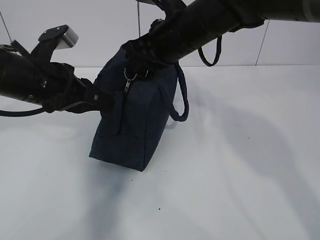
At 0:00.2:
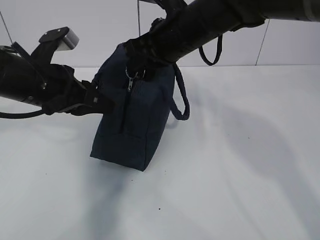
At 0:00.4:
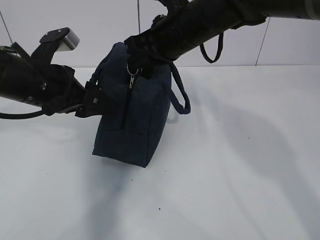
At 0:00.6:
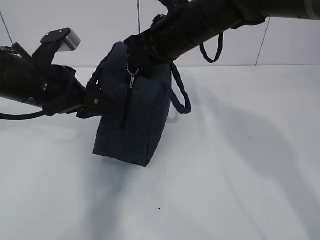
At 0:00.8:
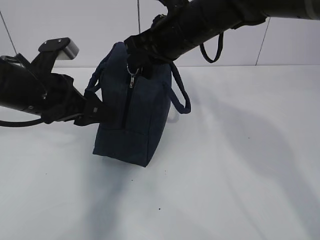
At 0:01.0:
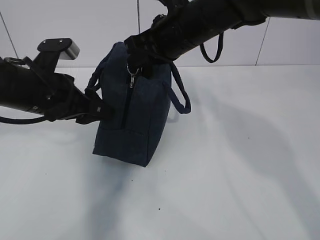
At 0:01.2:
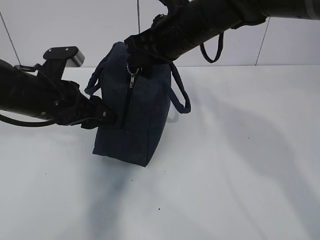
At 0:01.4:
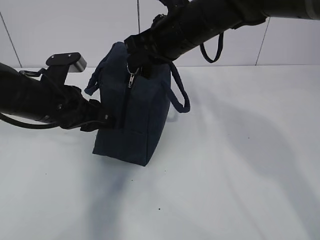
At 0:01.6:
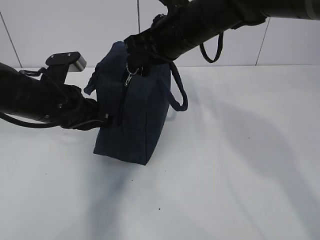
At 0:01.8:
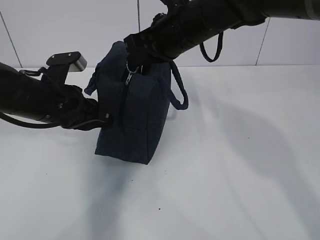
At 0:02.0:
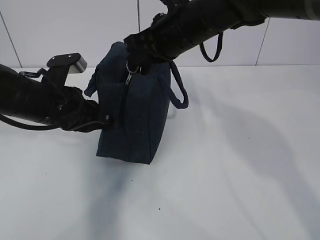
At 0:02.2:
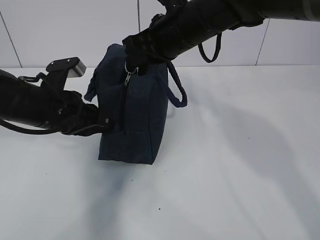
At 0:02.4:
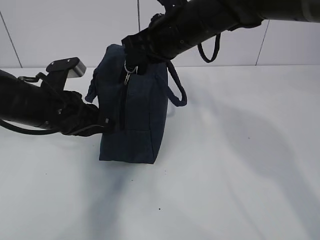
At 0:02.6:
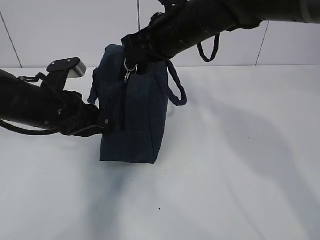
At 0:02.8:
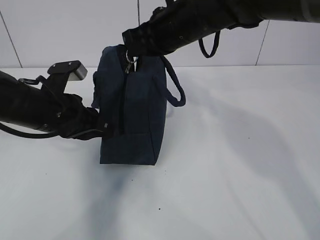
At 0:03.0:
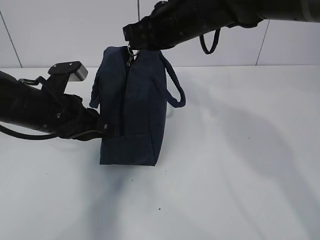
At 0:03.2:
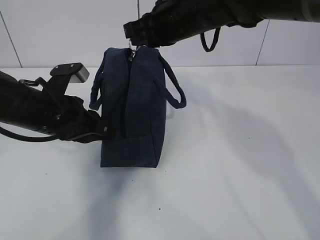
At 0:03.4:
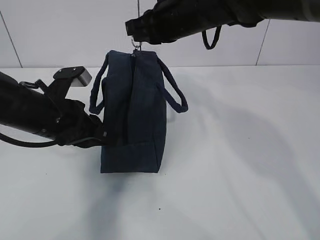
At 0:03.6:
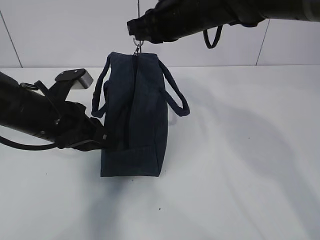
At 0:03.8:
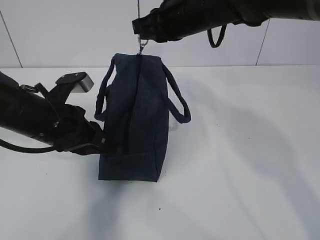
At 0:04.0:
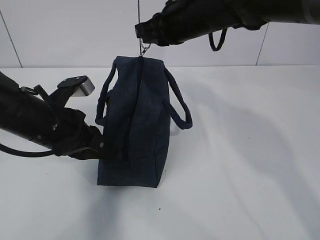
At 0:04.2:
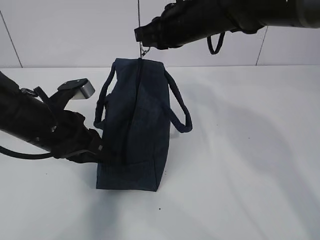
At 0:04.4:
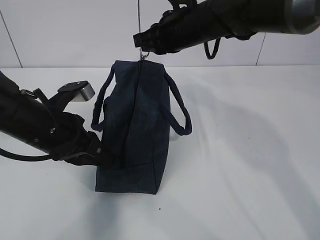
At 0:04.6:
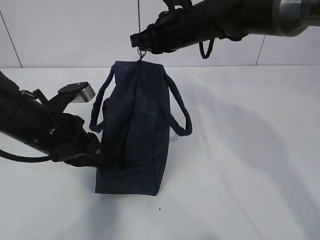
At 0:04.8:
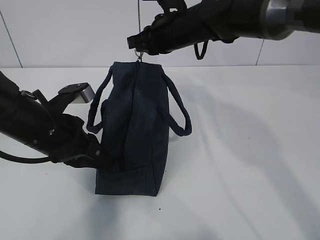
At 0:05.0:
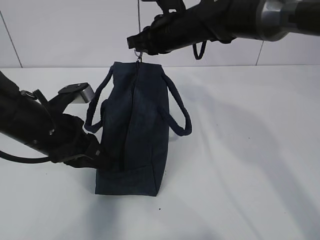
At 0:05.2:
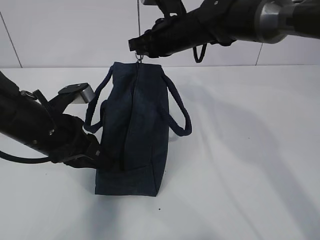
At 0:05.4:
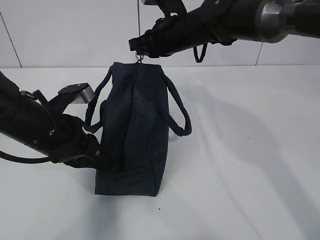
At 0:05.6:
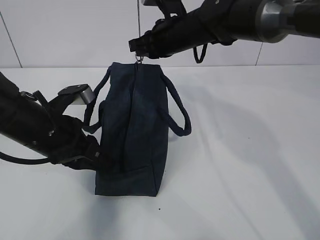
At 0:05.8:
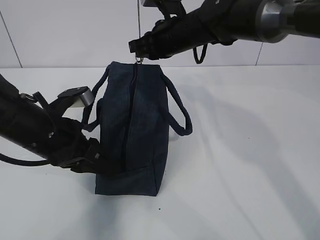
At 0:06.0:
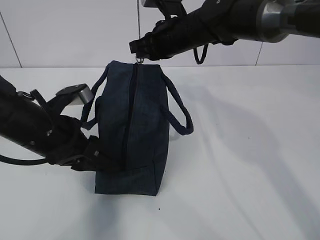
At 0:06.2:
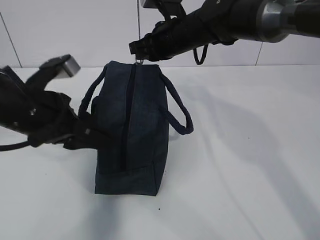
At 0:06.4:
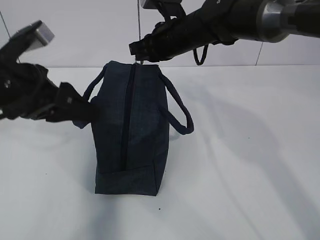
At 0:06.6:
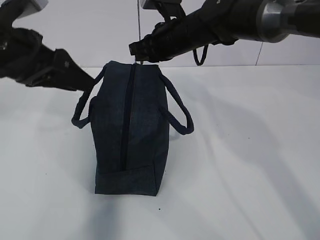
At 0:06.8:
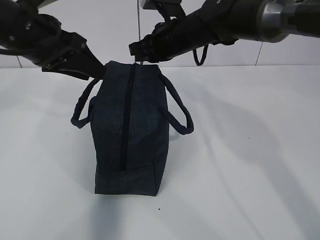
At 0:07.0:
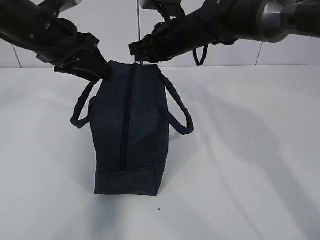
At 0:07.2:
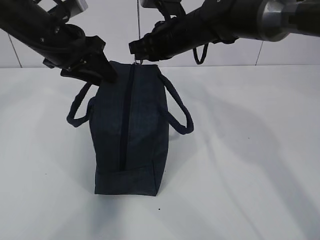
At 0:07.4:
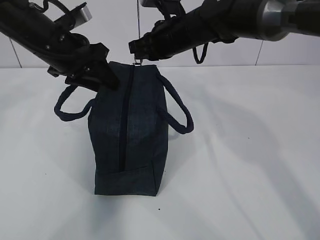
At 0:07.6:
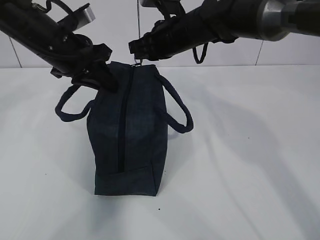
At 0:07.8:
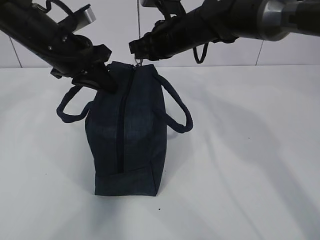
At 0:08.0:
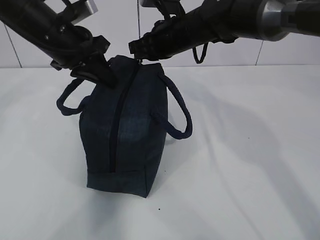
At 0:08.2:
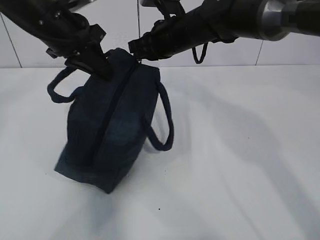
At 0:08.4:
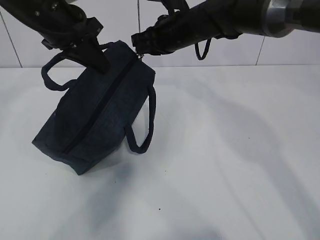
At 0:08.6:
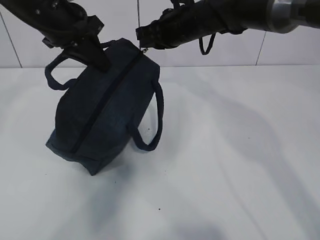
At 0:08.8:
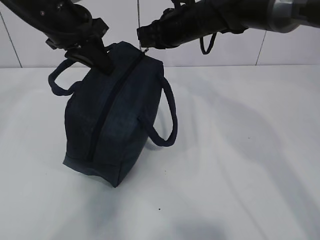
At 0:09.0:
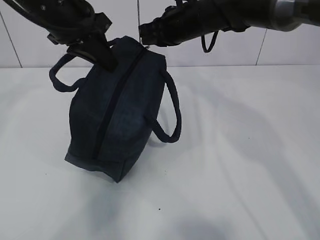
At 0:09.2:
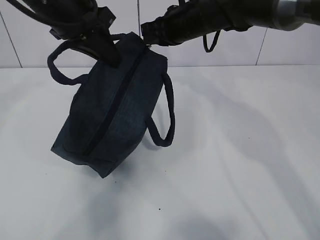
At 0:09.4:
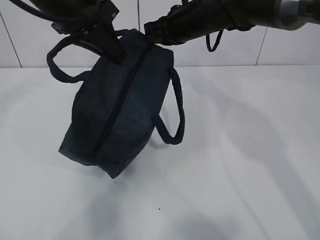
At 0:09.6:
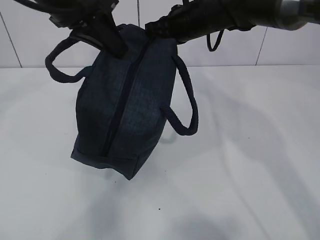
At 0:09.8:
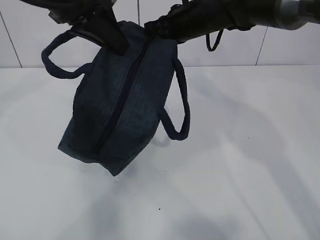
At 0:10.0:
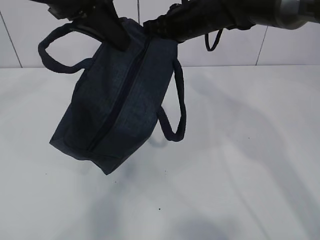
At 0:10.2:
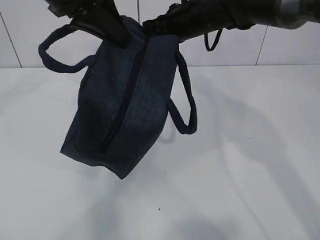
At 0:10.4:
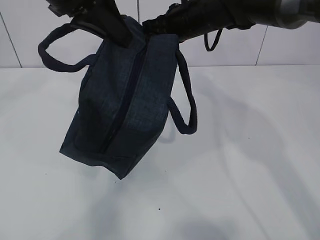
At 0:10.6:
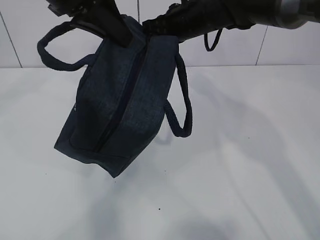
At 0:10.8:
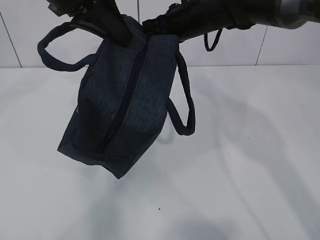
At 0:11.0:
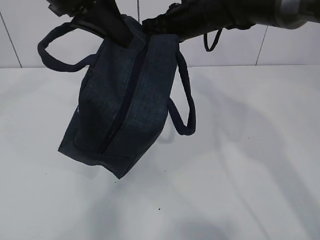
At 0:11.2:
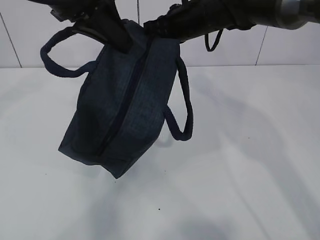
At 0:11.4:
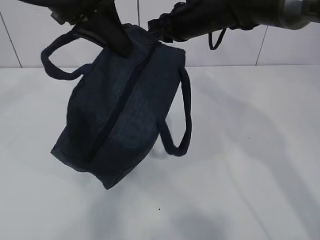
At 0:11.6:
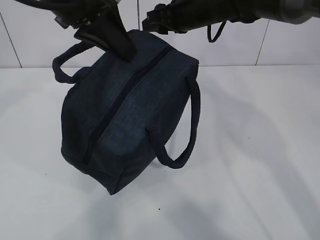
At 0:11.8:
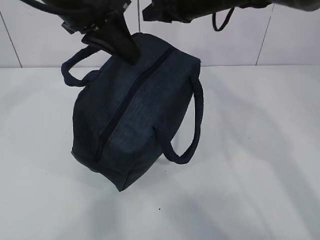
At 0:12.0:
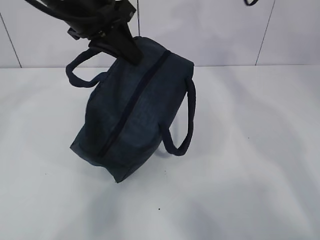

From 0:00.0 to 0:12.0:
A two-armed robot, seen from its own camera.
From 0:00.0 to 0:01.6: The left gripper opens, then closes again.
From 0:01.6 to 0:03.0: The grippers stay close to where they were, moving slightly.
From 0:03.0 to 0:04.4: There are only small adjustments of the grippers.
From 0:04.4 to 0:06.0: The left gripper opens.
From 0:06.0 to 0:07.6: The left gripper moves forward and upward, about 15 cm, and closes up.
From 0:07.6 to 0:09.0: The left gripper is displaced upward by some 5 cm.
From 0:09.0 to 0:10.4: The left gripper travels upward and backward by approximately 10 cm.
From 0:10.4 to 0:12.0: The right gripper moves upward and to the right, some 10 cm, and opens its fingers.

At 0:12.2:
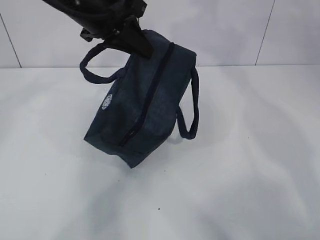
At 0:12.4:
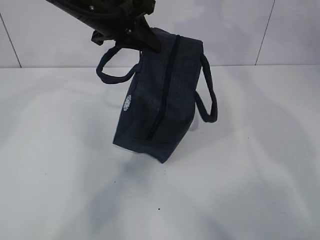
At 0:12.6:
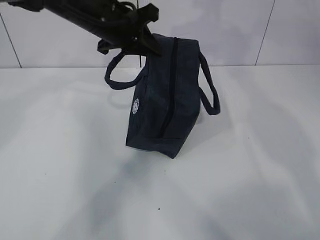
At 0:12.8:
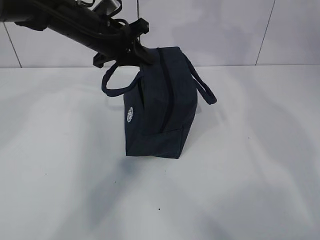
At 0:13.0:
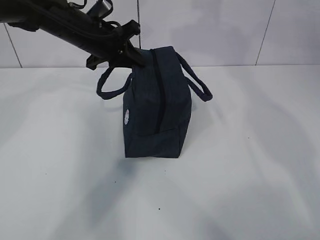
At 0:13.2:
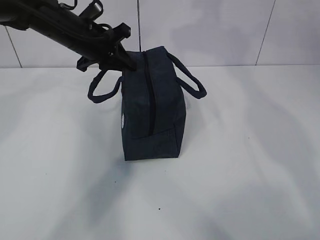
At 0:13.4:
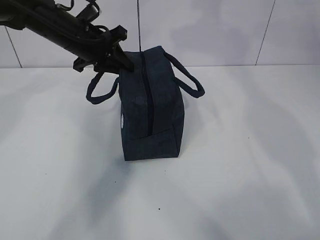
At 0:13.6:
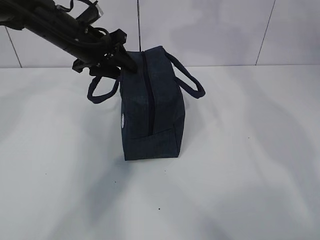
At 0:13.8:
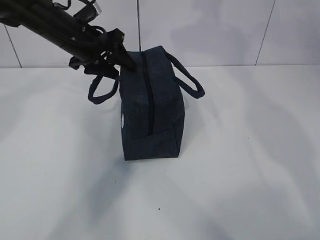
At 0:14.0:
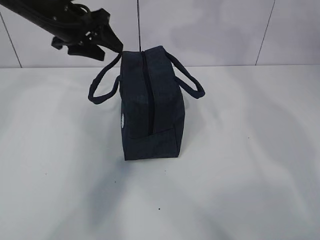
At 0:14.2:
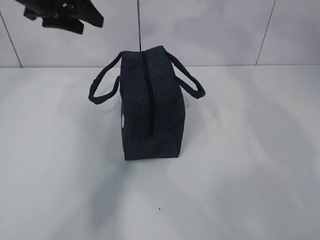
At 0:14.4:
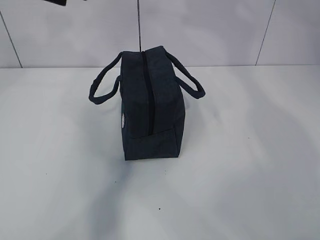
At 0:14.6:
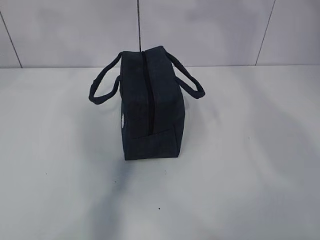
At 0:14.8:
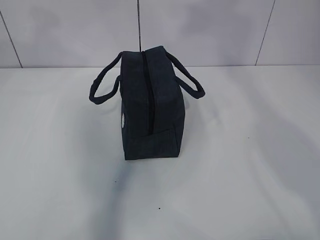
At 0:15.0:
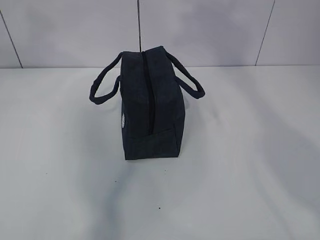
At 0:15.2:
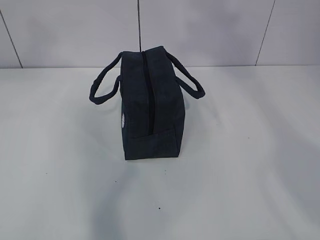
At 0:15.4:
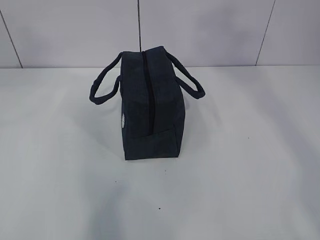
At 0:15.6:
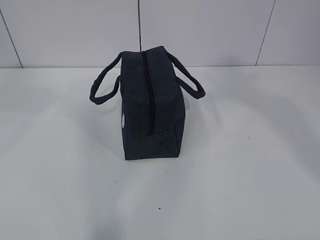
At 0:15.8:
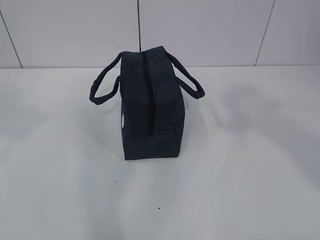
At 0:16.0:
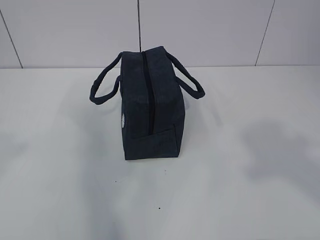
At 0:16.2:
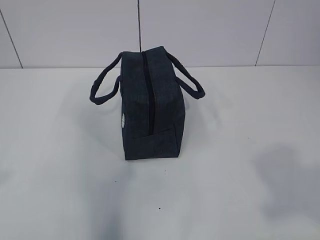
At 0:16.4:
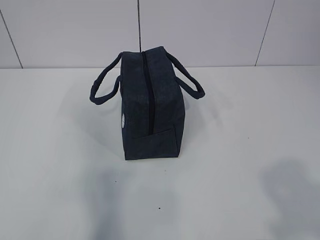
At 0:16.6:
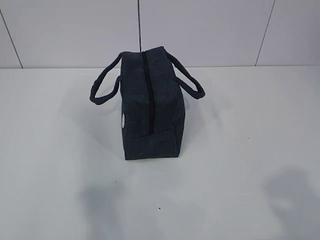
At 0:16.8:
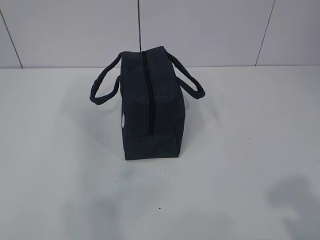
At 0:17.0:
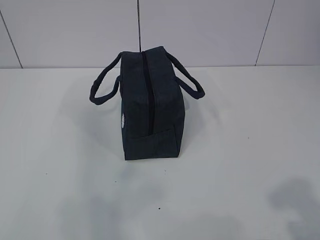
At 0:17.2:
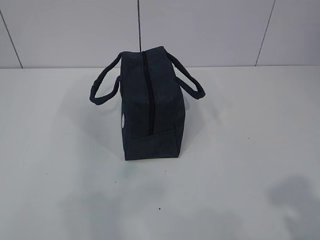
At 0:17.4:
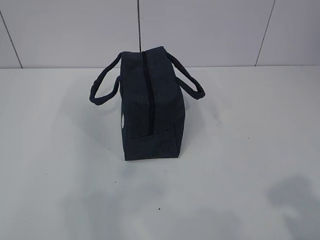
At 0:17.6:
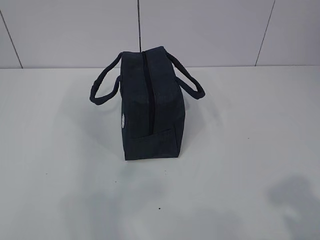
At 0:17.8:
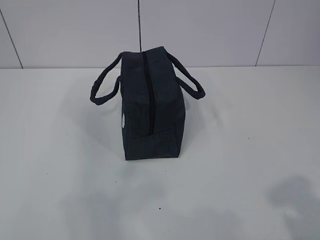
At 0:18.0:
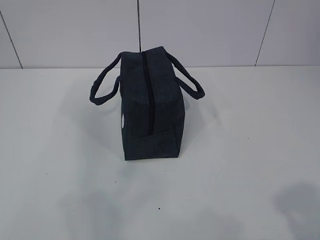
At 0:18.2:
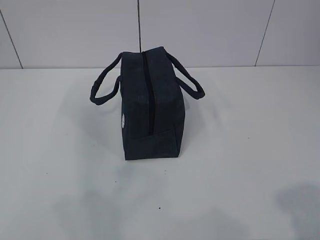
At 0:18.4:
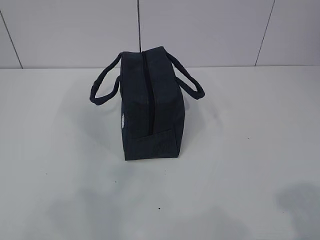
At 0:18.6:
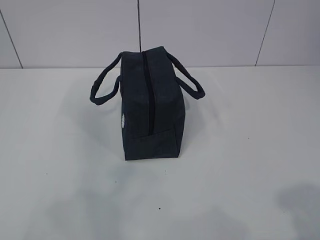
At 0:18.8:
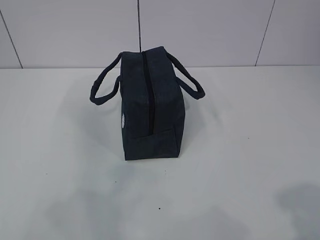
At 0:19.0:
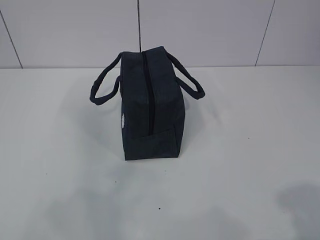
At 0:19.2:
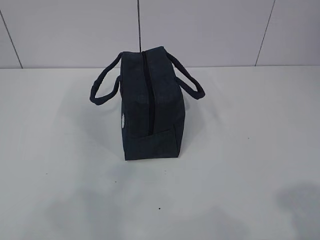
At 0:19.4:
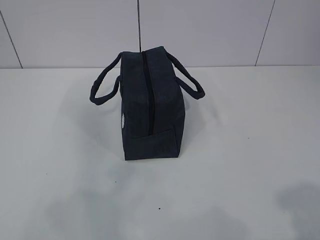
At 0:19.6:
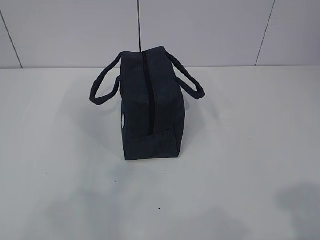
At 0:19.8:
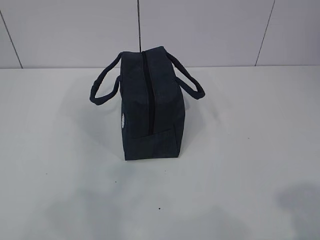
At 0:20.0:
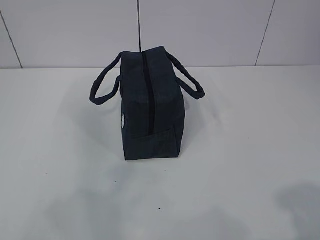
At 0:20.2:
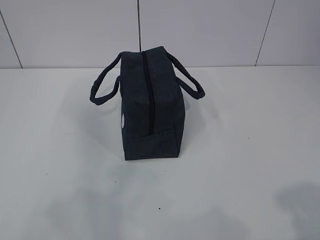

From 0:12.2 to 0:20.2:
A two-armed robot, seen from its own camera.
From 0:12.2 to 0:13.8: The left gripper travels downward and forward by approximately 10 cm, and opens up.
From 0:13.8 to 0:15.4: The left gripper travels upward and backward by about 40 cm. The right gripper travels backward and upward by about 35 cm.
From 0:15.4 to 0:17.0: The right gripper moves downward and backward, some 35 cm.
From 0:18.6 to 0:20.2: Neither gripper changes place.
